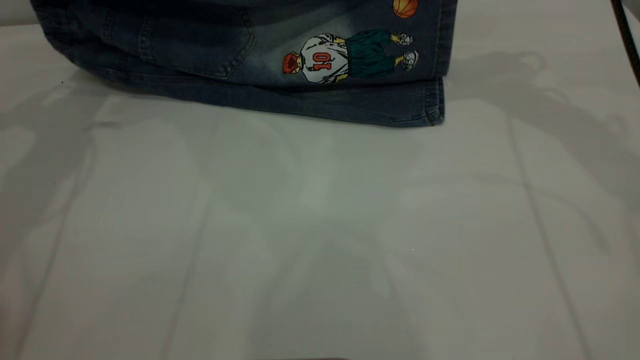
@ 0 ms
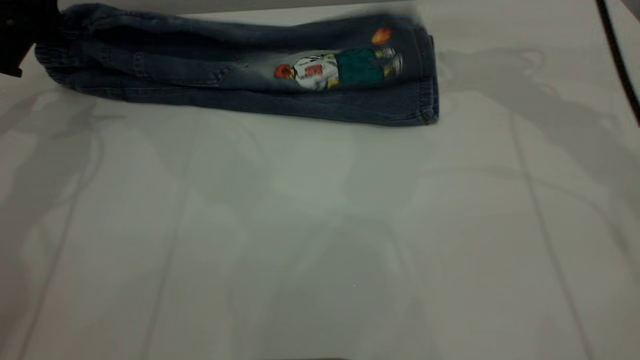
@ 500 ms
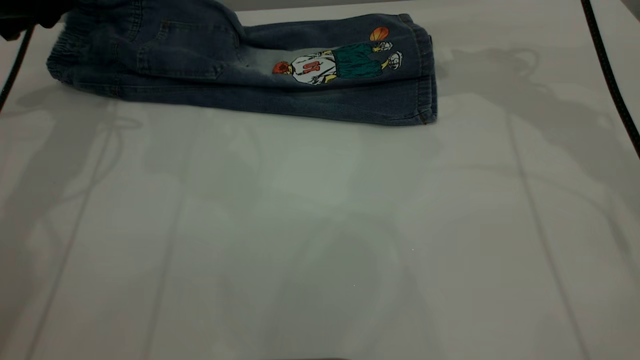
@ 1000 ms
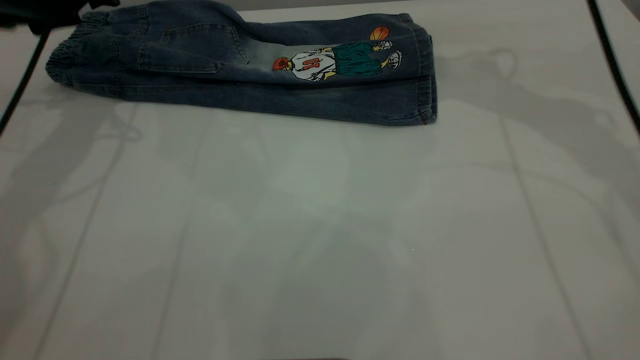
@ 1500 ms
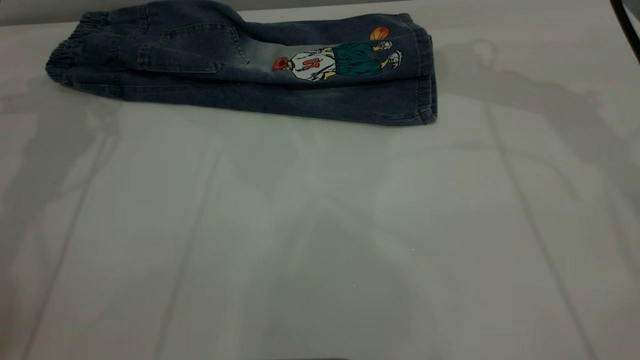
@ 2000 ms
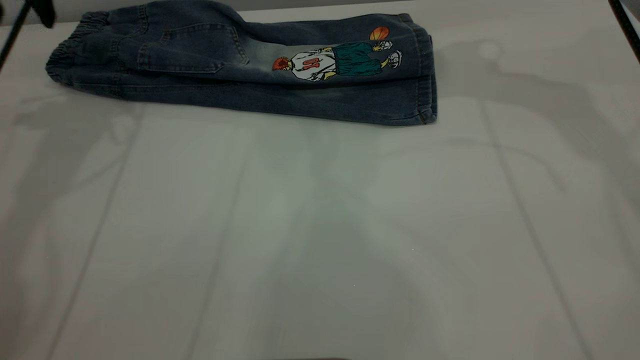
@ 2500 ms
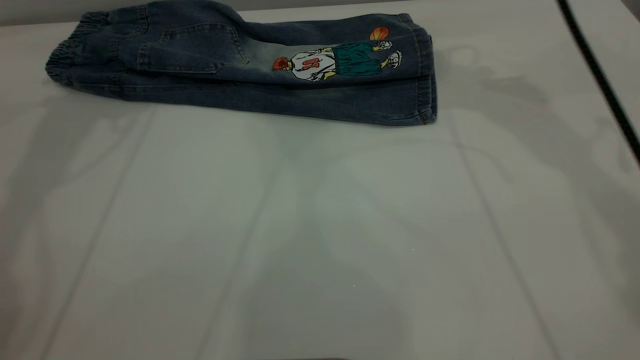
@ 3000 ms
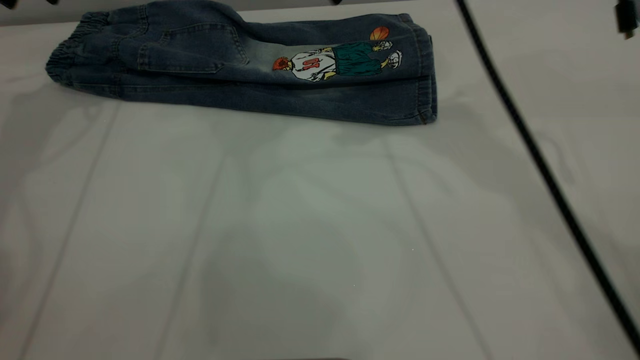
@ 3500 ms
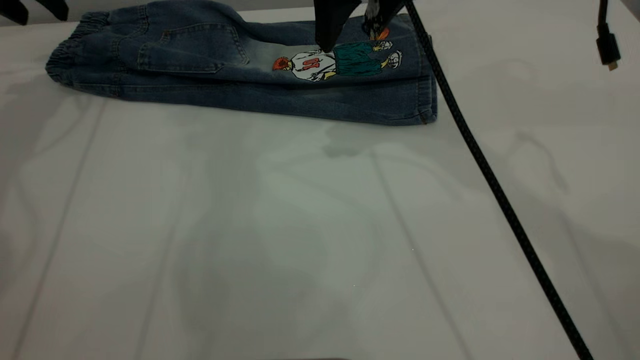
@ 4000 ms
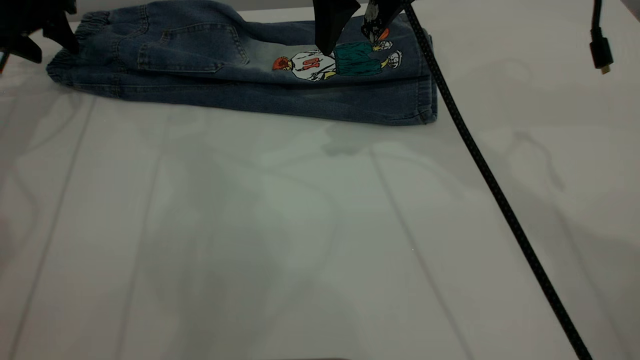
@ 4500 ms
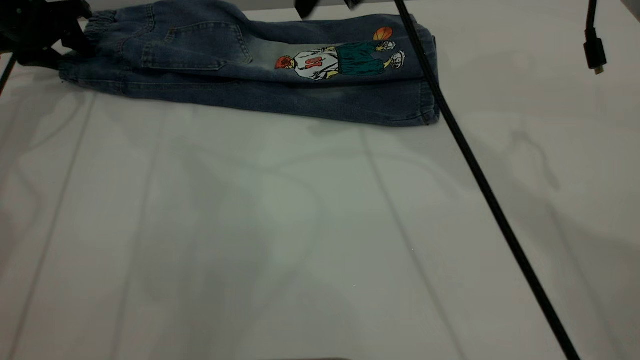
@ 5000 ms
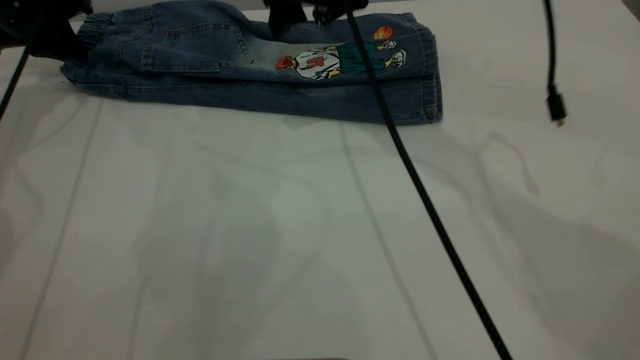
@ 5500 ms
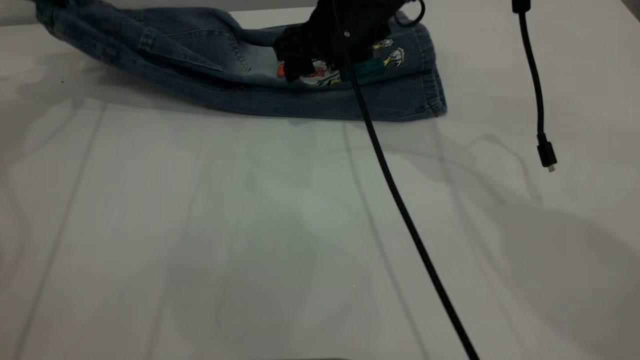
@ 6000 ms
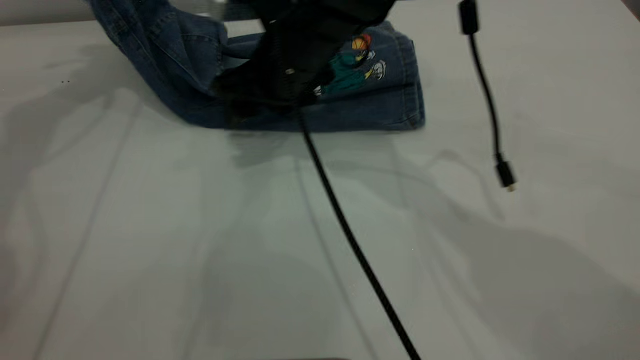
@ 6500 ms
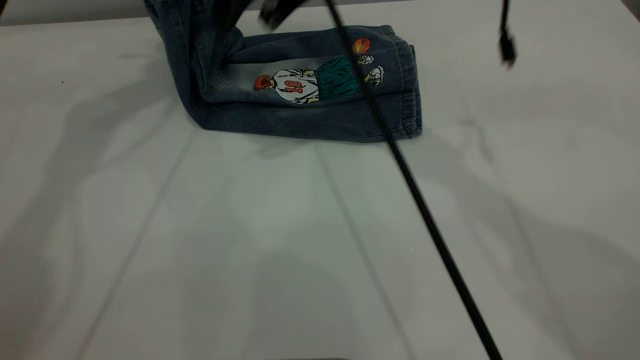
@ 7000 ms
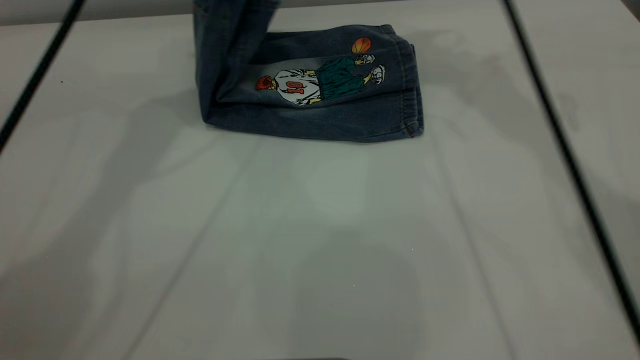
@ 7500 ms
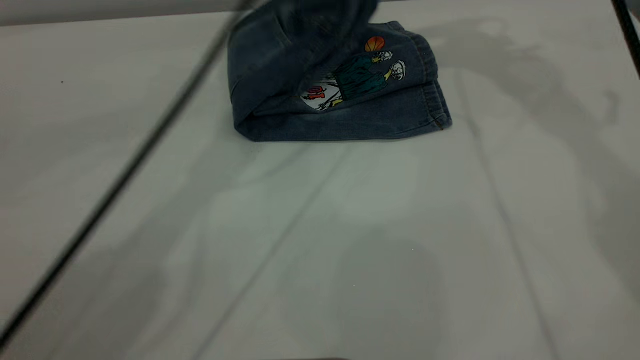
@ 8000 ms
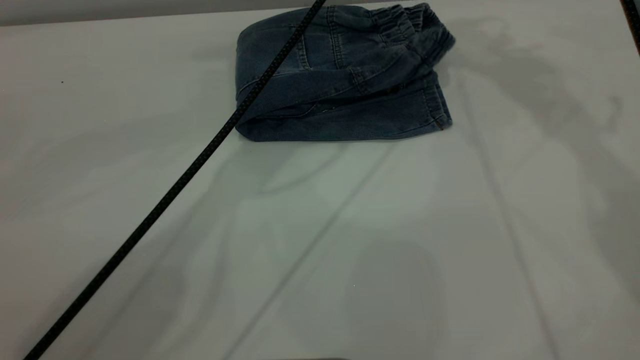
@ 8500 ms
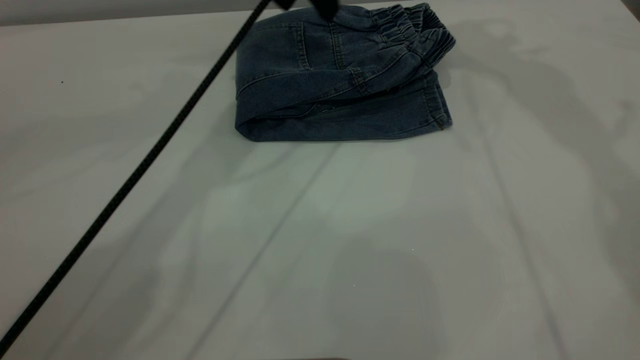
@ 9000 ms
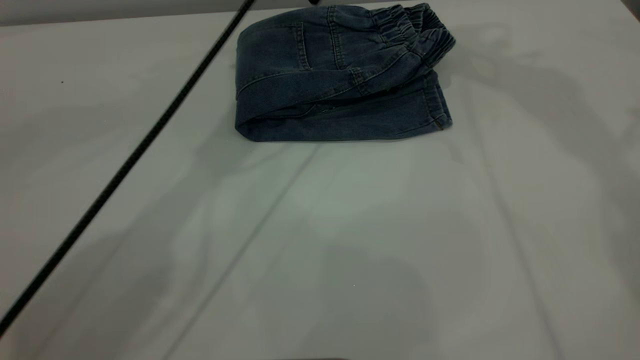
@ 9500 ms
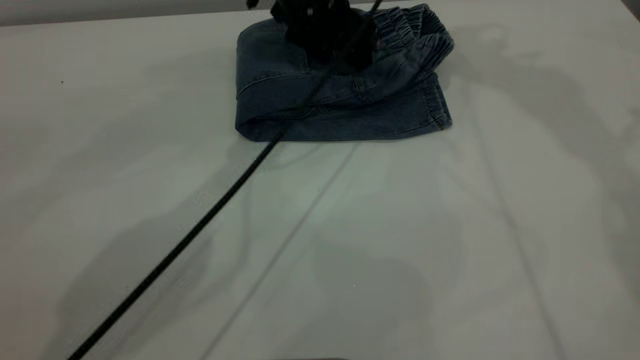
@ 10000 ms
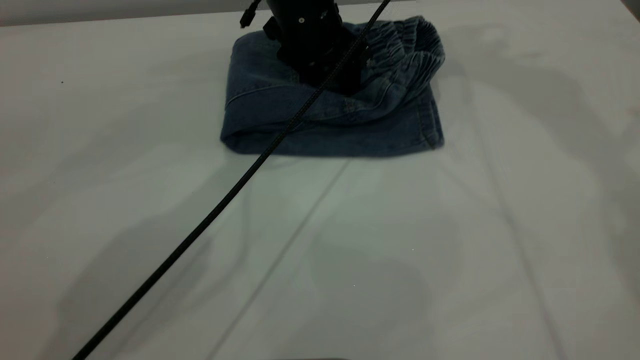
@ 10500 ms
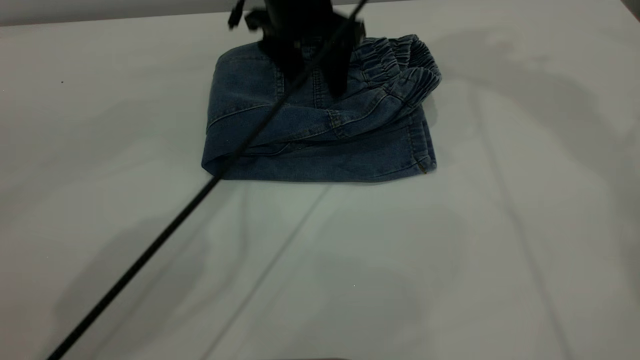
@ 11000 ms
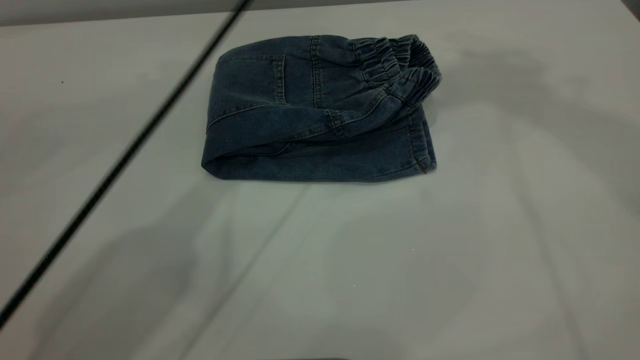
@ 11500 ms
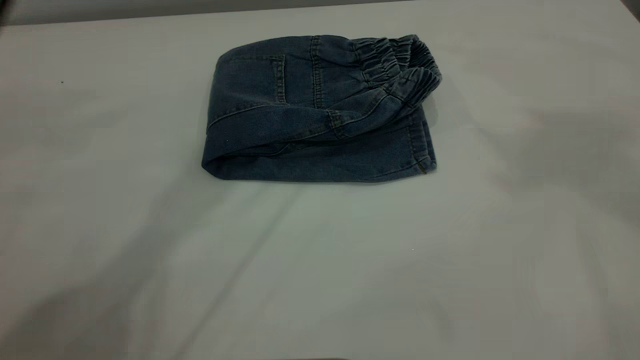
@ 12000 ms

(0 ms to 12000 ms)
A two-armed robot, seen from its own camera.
Step, 2000 ms - 9000 ms: Fold the pants from left to right.
0 ms - 2000 ms: The right gripper opens up, while the left gripper opens.
2000 ms - 4000 ms: The left gripper moves to the left and forward, roughly 5 cm, and reaches approximately 5 cm upward, then returns. The right gripper shifts approximately 10 cm to the left.
4000 ms - 6000 ms: The left gripper reaches approximately 10 cm downward, then returns, and closes up, while the right gripper is displaced downward by some 10 cm.
6000 ms - 8000 ms: The left gripper travels to the right by about 35 cm; the right gripper goes about 30 cm upward and to the right.
8000 ms - 10000 ms: The right gripper heads upward, covering roughly 5 cm. The left gripper is displaced downward by roughly 10 cm, and opens up.
10000 ms - 12000 ms: The right gripper moves backward and upward, approximately 25 cm. Meanwhile the left gripper is displaced upward by roughly 35 cm.

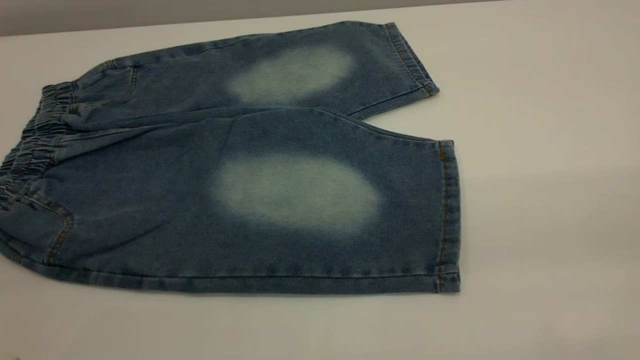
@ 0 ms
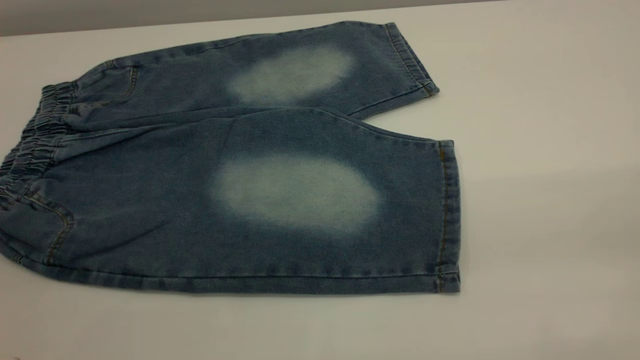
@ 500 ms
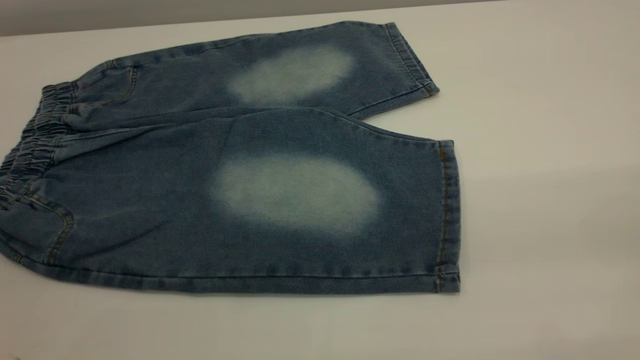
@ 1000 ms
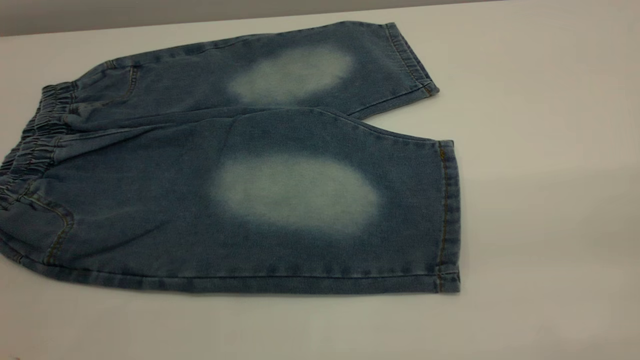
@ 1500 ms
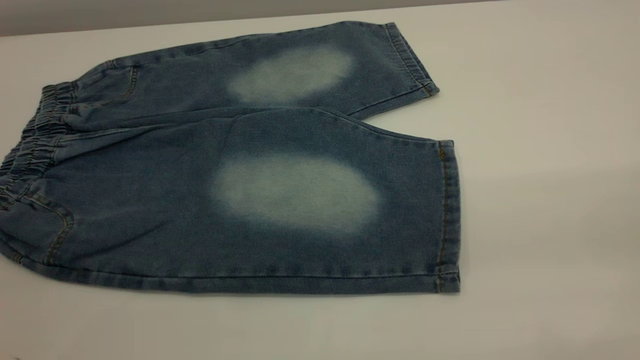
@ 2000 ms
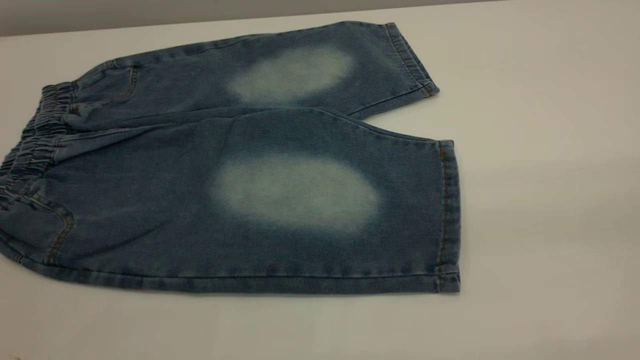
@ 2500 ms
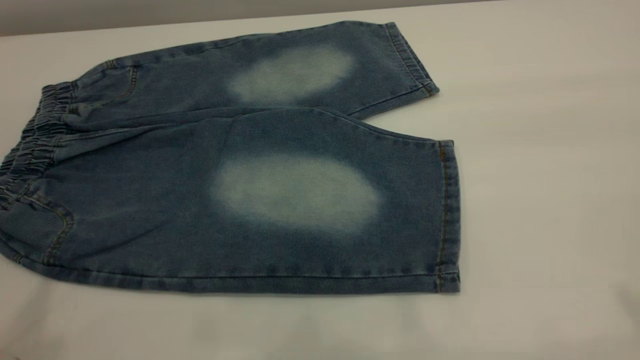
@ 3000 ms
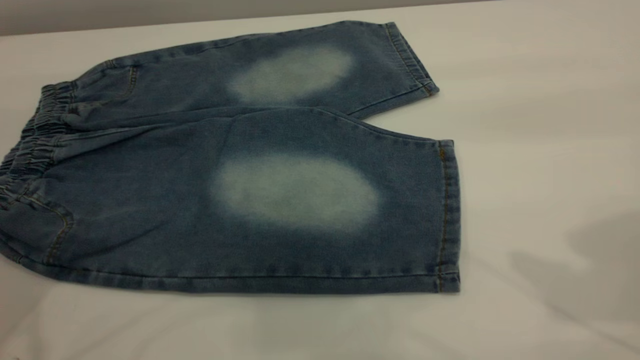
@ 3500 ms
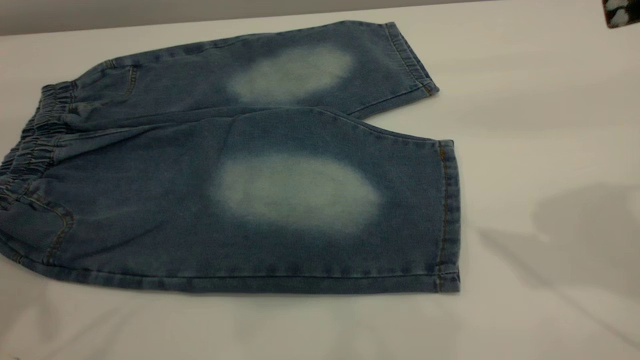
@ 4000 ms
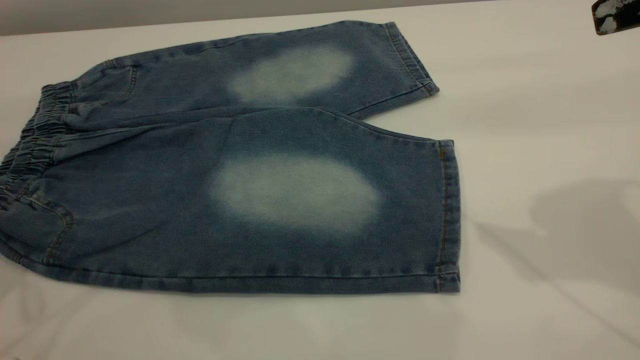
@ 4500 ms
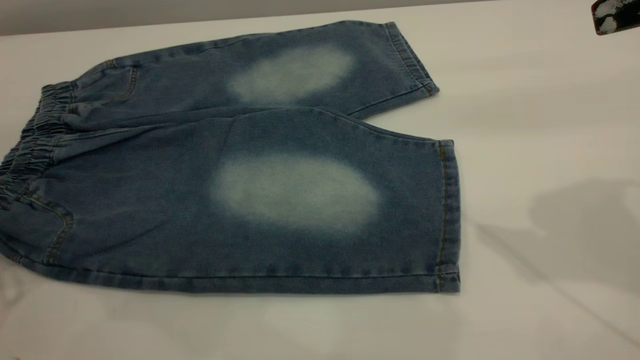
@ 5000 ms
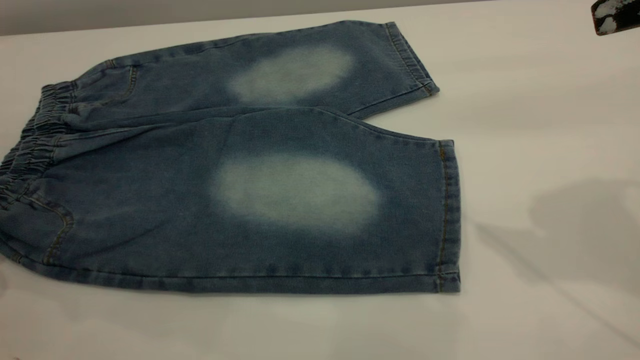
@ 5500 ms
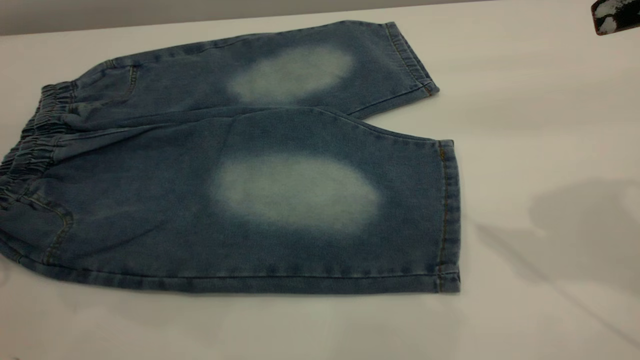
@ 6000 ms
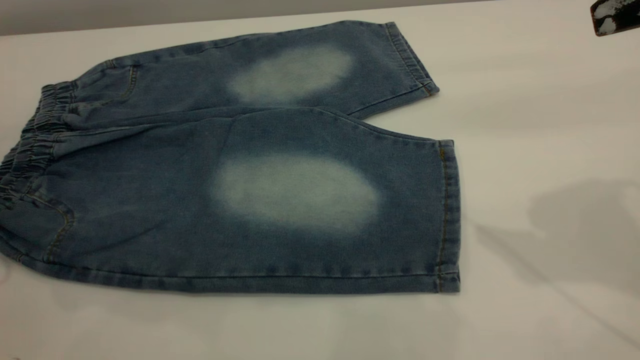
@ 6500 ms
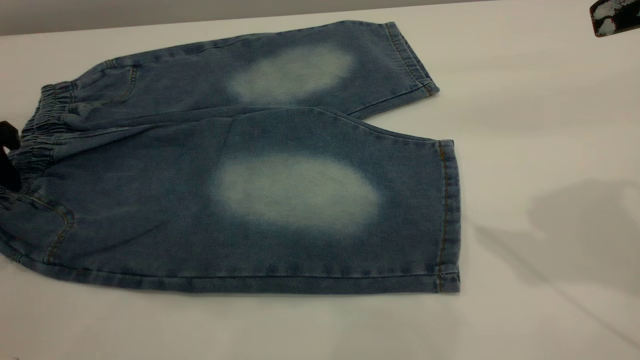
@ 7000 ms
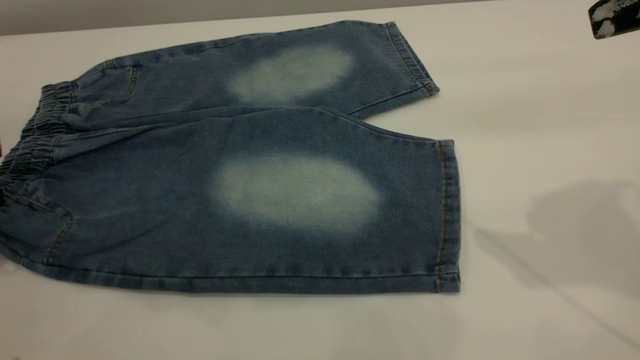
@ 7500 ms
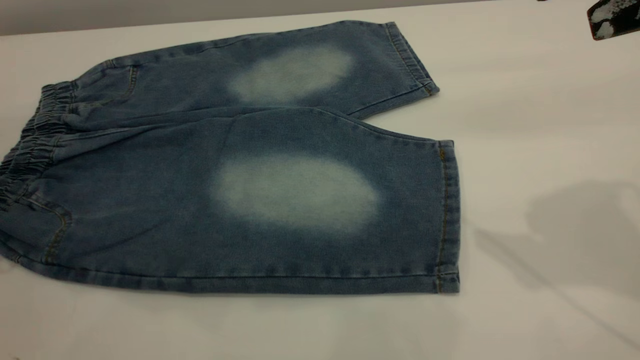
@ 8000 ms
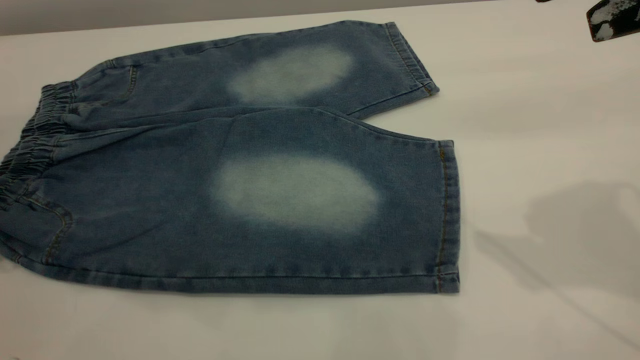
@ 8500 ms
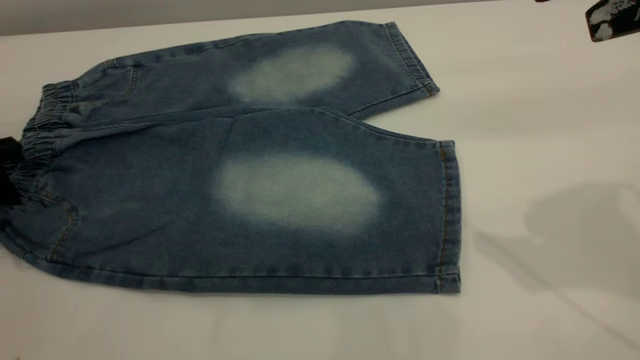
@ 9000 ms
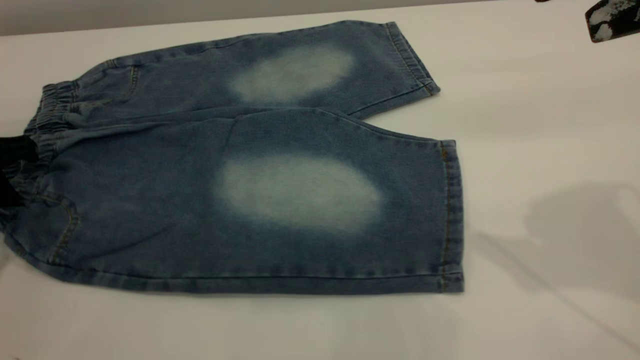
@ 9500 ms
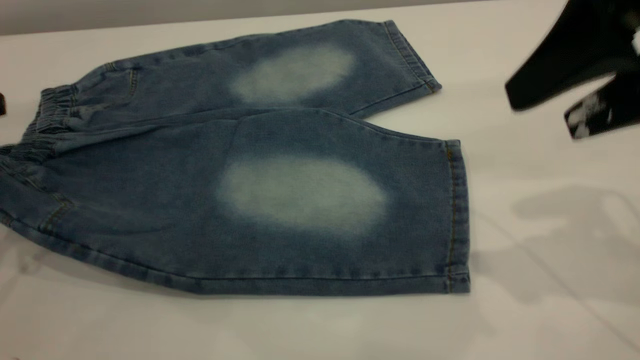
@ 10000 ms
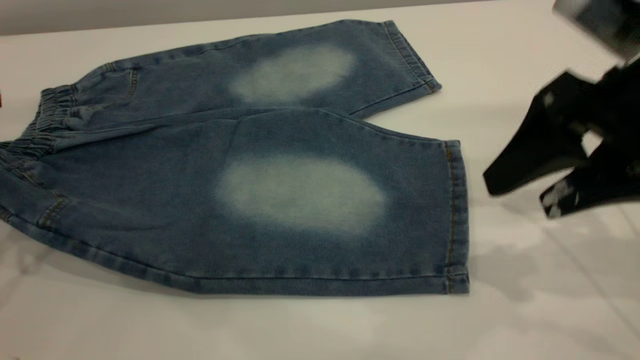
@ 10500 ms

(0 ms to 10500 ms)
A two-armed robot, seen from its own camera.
0 ms - 2000 ms: Both grippers stay about where they are.
8500 ms - 10500 ms: The left gripper changes place by approximately 5 cm, and closes its fingers, while the right gripper moves downward, about 15 cm.
